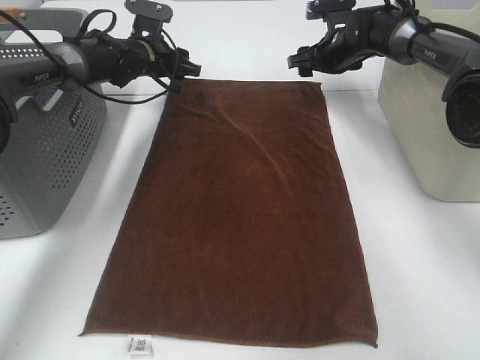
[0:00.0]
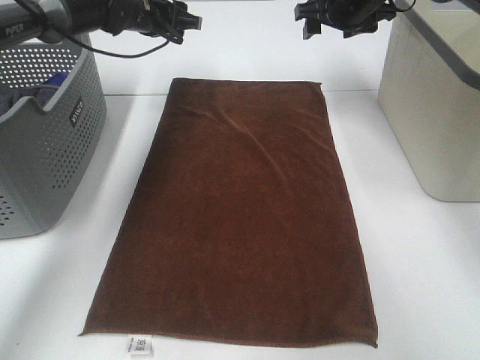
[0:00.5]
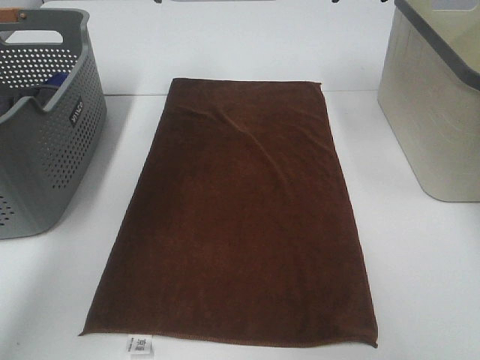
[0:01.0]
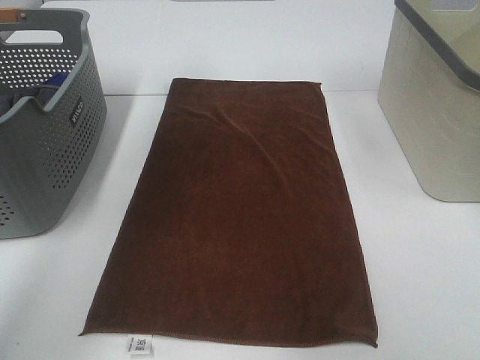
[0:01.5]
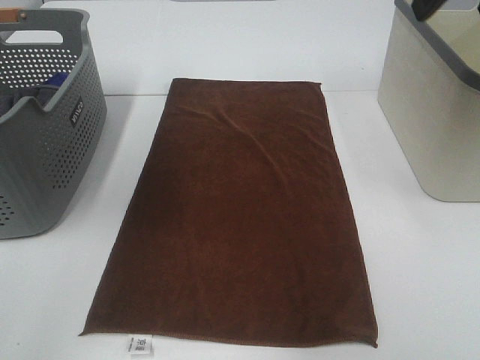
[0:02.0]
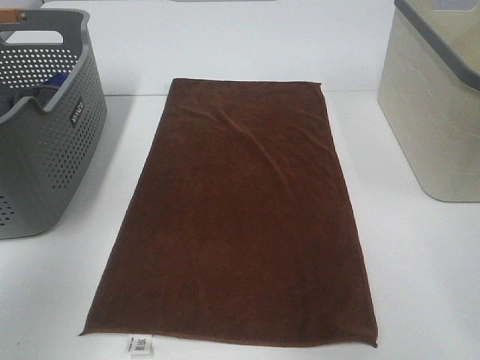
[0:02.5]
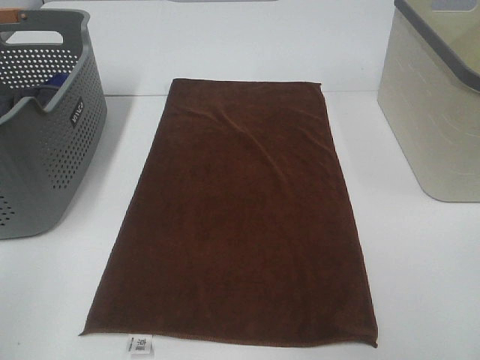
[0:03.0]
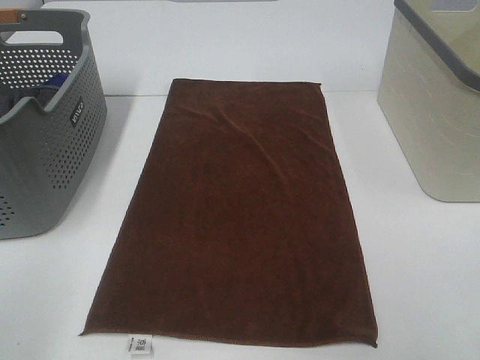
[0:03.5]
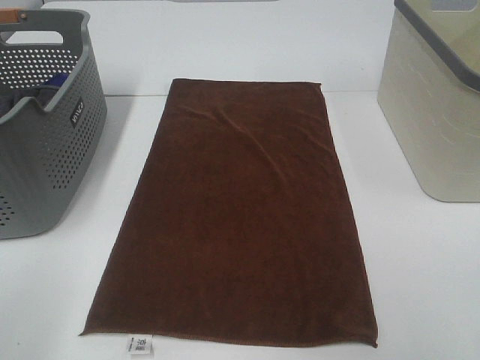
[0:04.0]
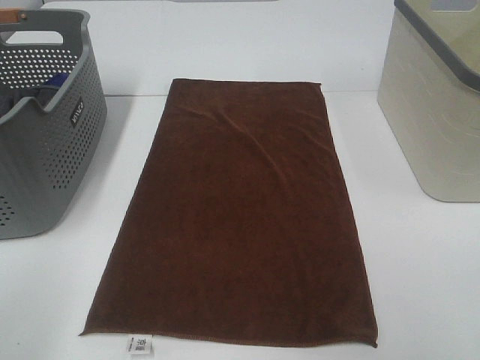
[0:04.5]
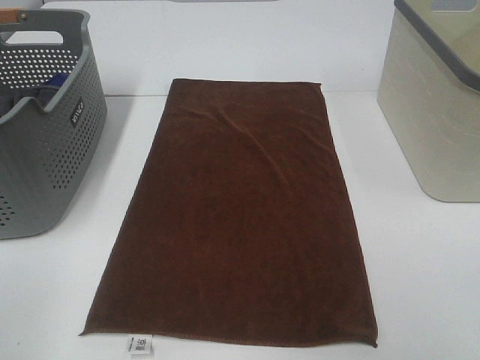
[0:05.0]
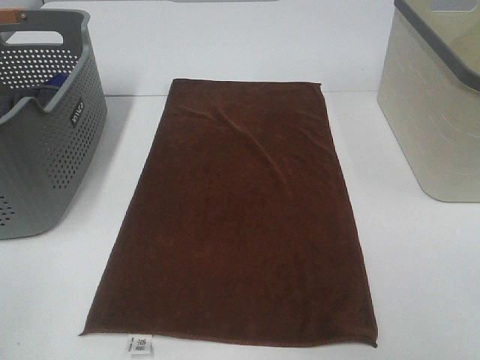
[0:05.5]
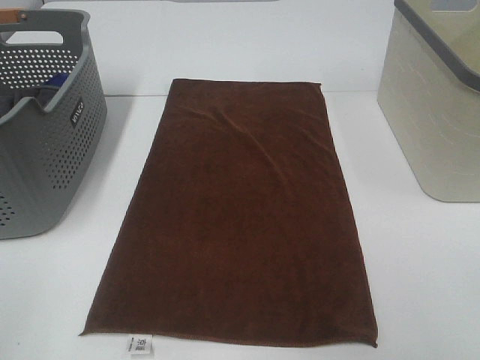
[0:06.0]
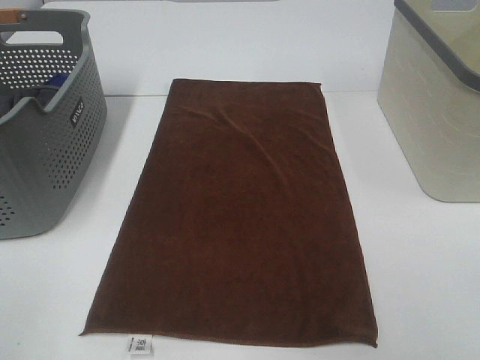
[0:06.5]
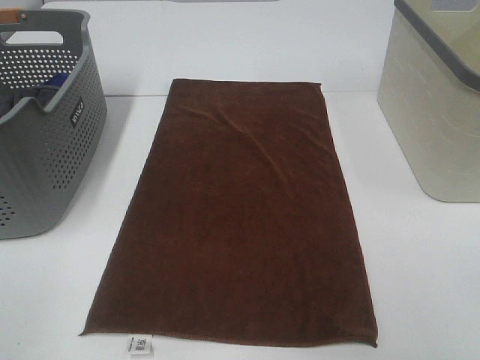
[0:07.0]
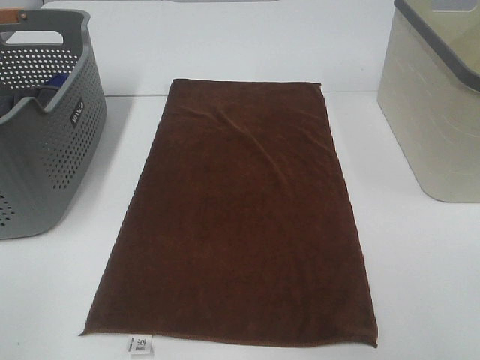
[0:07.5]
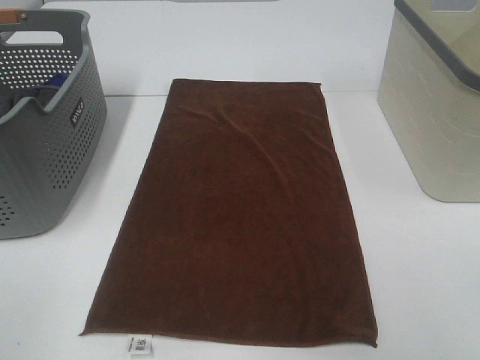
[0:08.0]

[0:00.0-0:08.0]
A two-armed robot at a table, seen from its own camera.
Task of the whole recording: Remove the towel and place it.
0:00.0 to 0:02.0: The right gripper goes some 40 cm backward and upward. Meanwhile the left gripper goes some 40 cm upward and backward.
0:02.0 to 0:04.0: The left gripper moves backward and downward, some 30 cm.

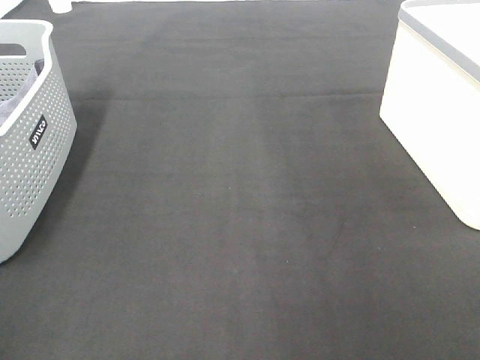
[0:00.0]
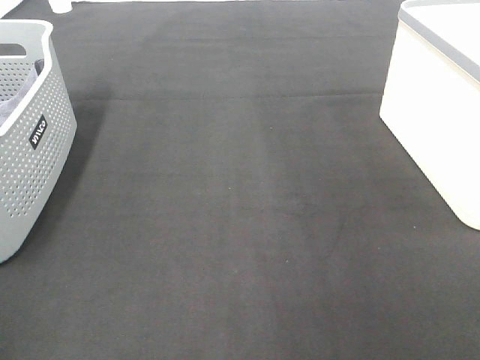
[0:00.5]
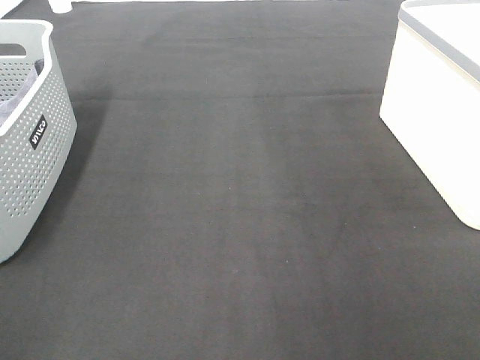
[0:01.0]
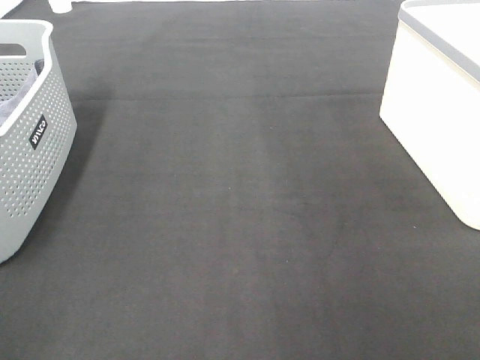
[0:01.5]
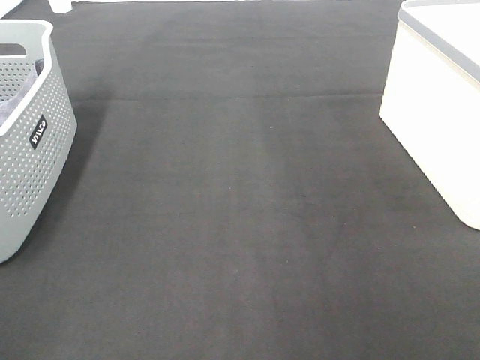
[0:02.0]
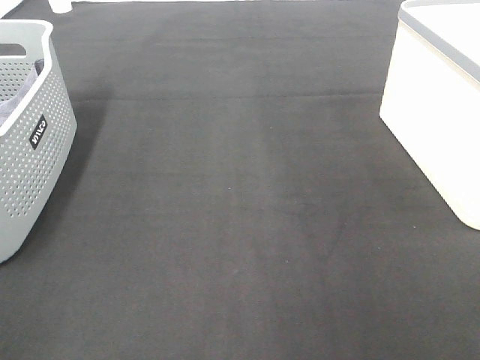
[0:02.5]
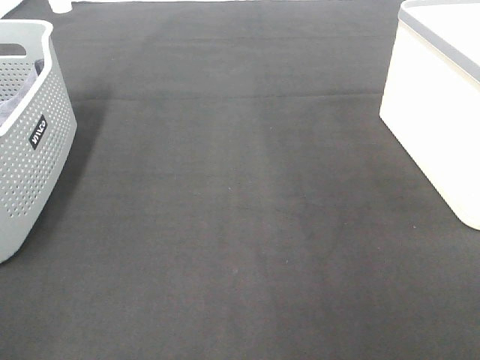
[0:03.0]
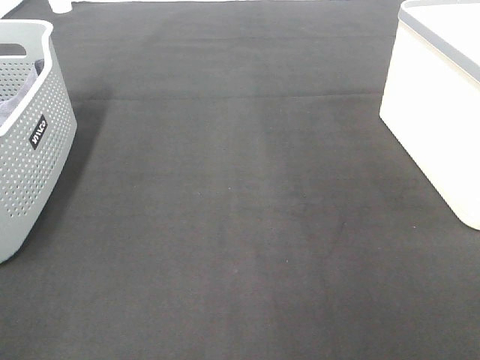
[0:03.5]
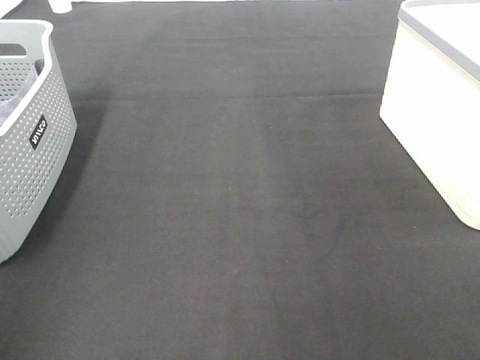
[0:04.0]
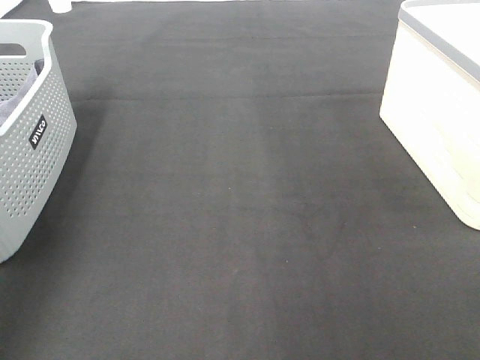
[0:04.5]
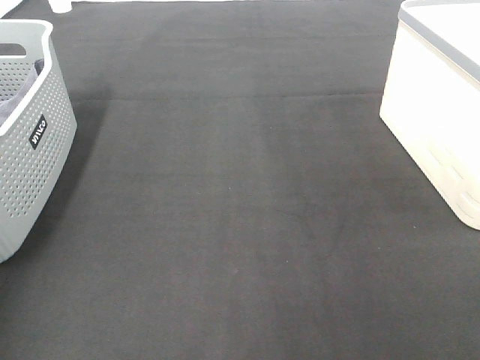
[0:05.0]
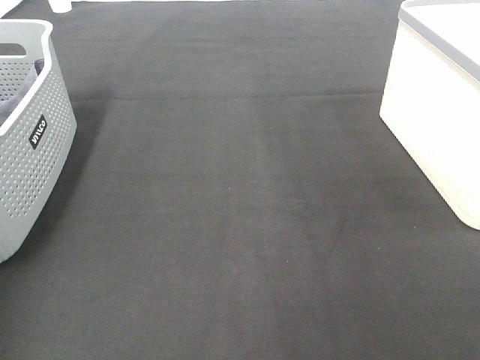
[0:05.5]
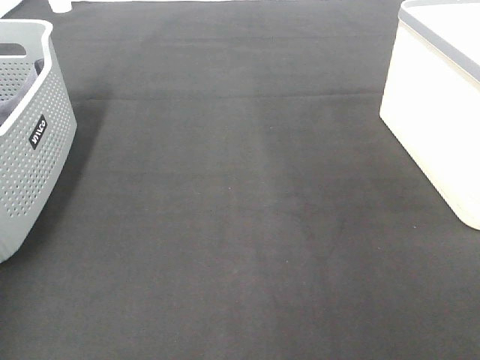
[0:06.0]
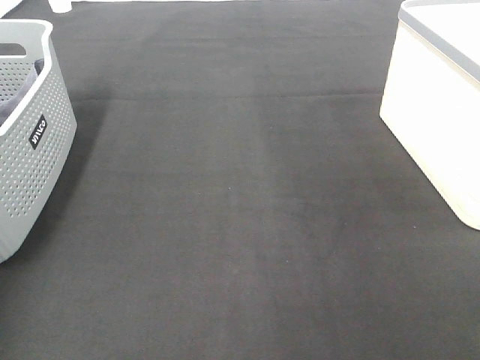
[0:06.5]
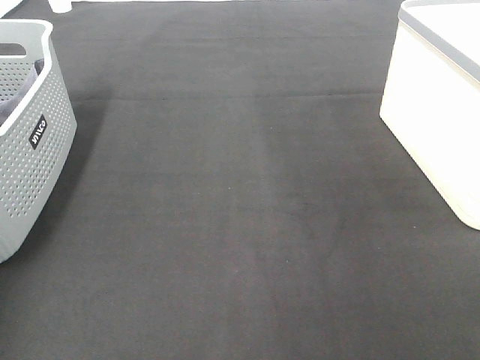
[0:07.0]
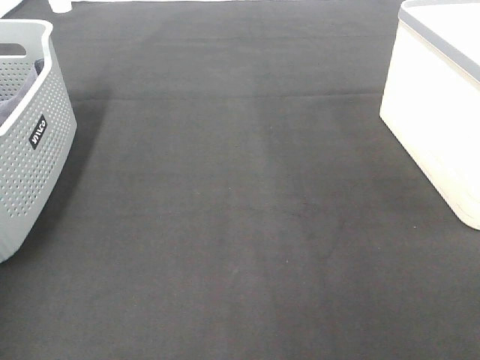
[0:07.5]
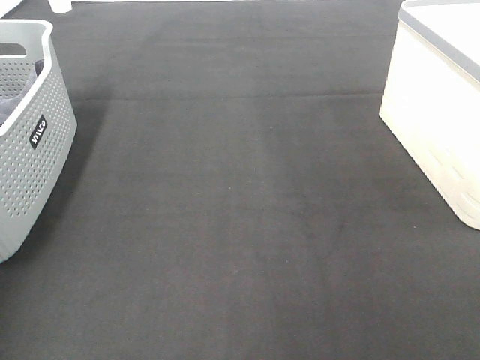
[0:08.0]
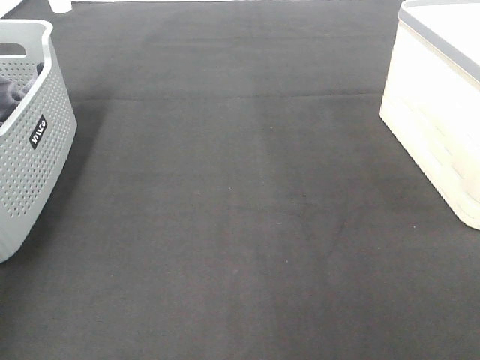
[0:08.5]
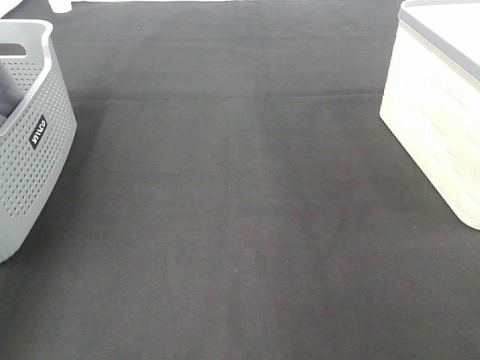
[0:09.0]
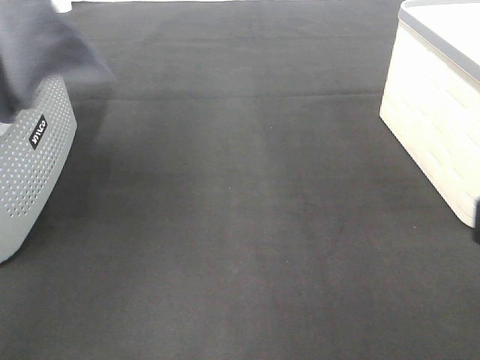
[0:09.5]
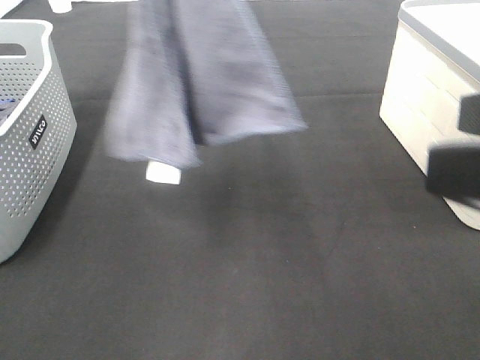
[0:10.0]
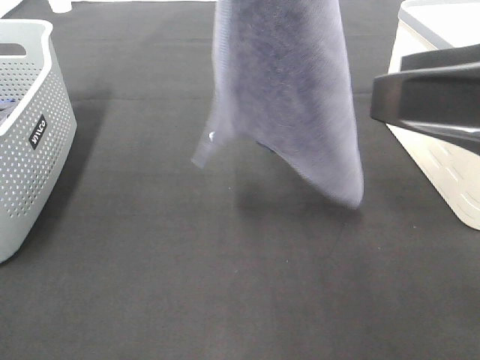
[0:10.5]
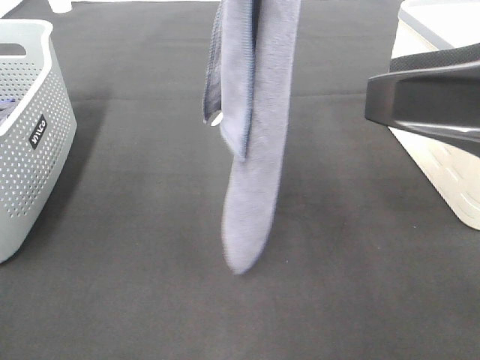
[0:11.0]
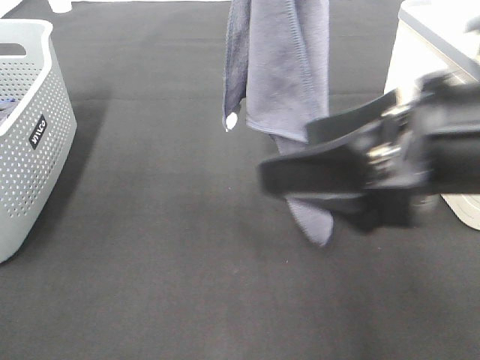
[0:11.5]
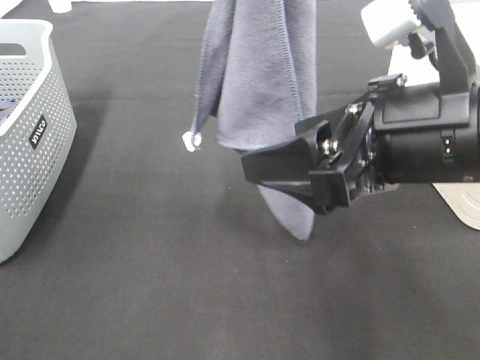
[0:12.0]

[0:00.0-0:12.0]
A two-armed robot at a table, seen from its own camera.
Task of the whole recording: Remove the towel and place it.
Step, 0:08.5 to 0:12.0: Right hand: grab a corner of the grey towel and straighten it.
0:08.0 to 0:10.0: The left gripper travels to the right and upward by roughly 30 cm, while the right gripper shifts roughly 15 cm forward, to the left and upward.
0:10.0 to 0:12.0: The right gripper travels forward, to the left and downward by some 15 cm, while the left gripper travels to the right by about 5 cm.

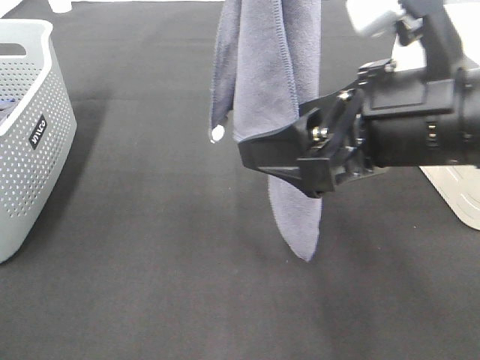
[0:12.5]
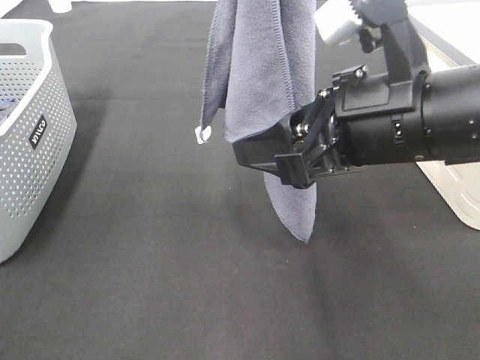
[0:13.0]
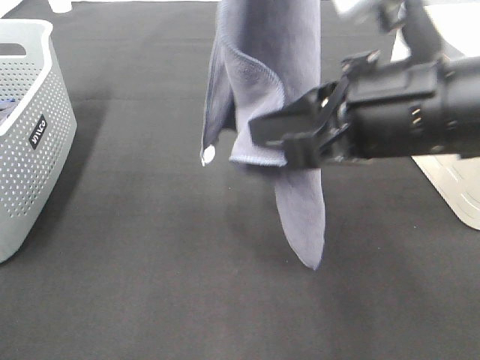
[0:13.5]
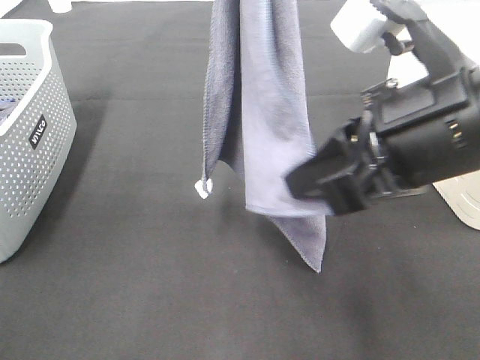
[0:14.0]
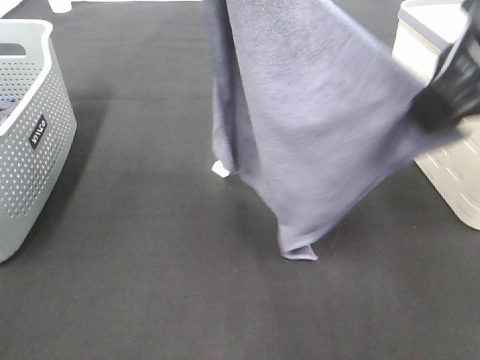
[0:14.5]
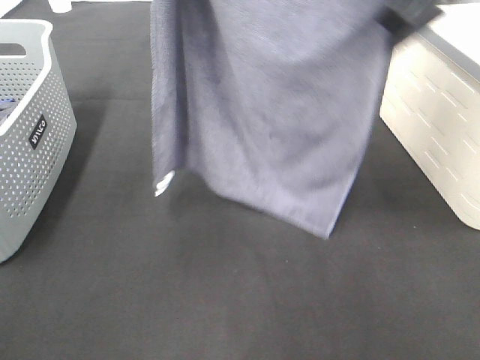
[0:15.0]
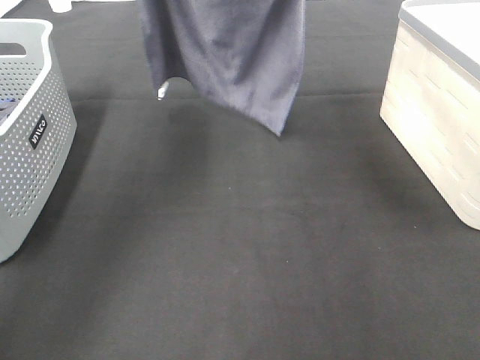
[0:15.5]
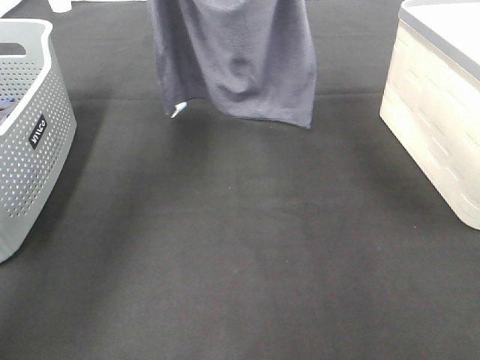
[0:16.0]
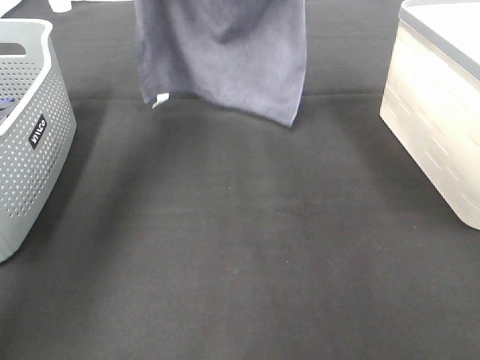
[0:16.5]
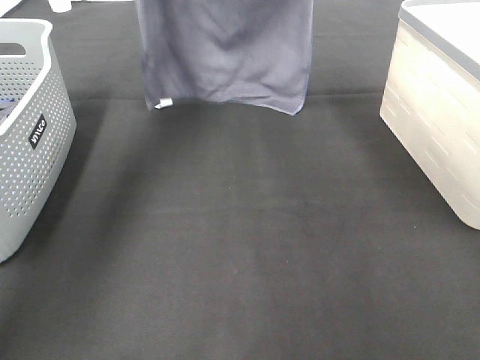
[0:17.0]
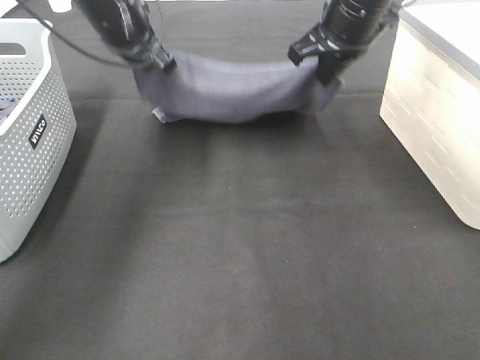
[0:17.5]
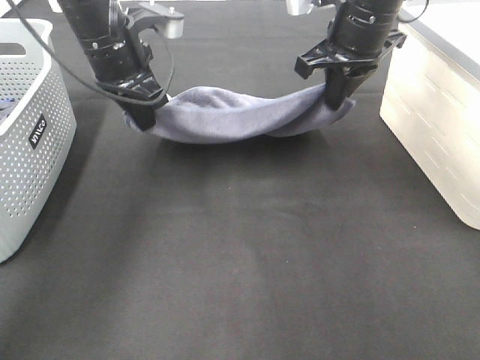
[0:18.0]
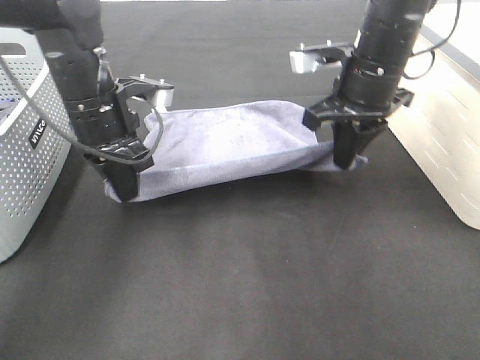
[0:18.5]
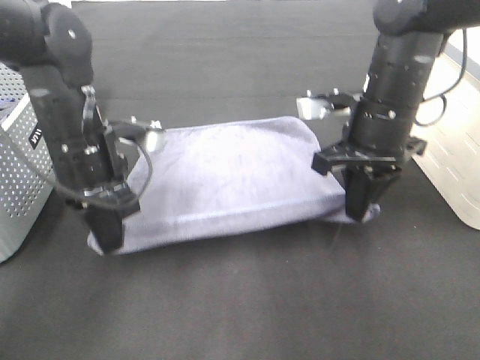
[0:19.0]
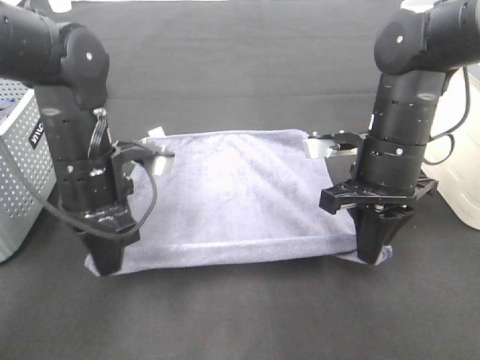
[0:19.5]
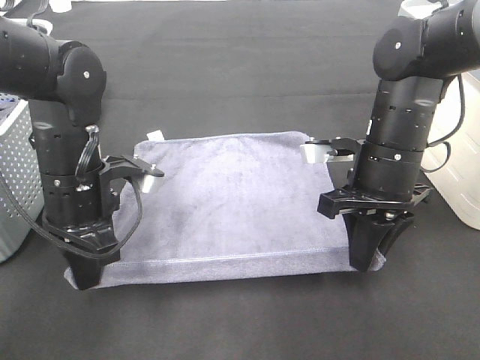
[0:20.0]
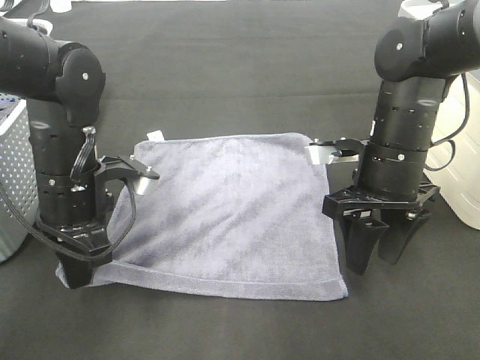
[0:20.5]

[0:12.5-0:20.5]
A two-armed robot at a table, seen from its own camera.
Task of the whole recording: Remove the towel and place it.
Step, 0:12.5 to 0:16.0: Right hand: spread the grey towel flat on the table.
Step, 0:12.5 to 0:17.0: Left hand: spread the grey towel flat on the table.
0:12.5 to 0:14.5: The left gripper moves roughly 5 cm. The right gripper moves upward, about 10 cm, and closes.
0:14.5 to 0:16.5: The left gripper heads forward, downward and to the left, covering approximately 25 cm. The right gripper travels forward by about 25 cm.
0:16.5 to 0:18.5: Both grippers move downward and backward, some 20 cm.
0:18.5 to 0:20.5: The right gripper travels backward and downward by some 10 cm, and opens its fingers, while the left gripper moves backward, about 5 cm.
